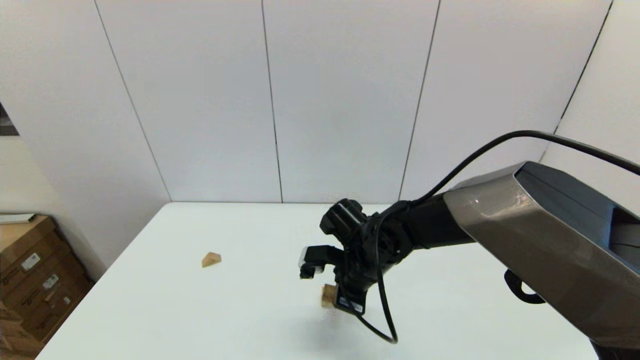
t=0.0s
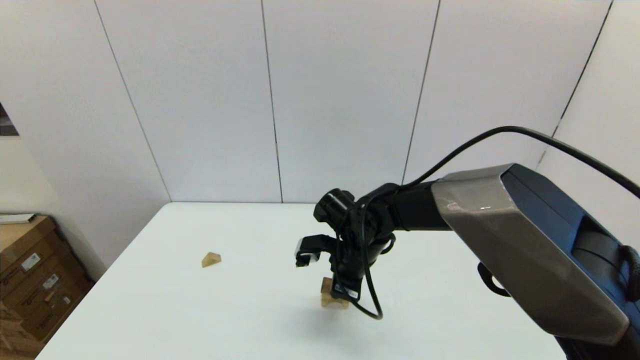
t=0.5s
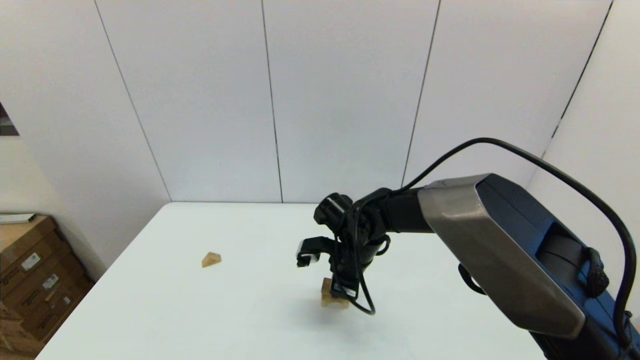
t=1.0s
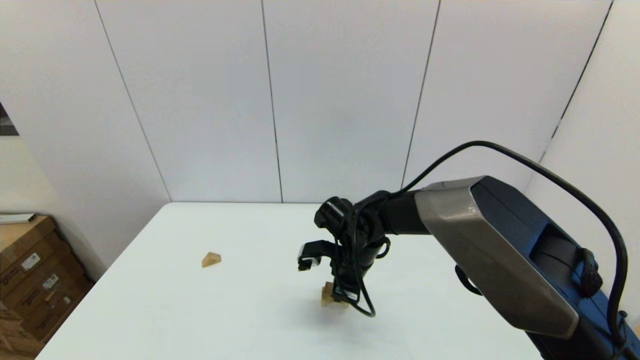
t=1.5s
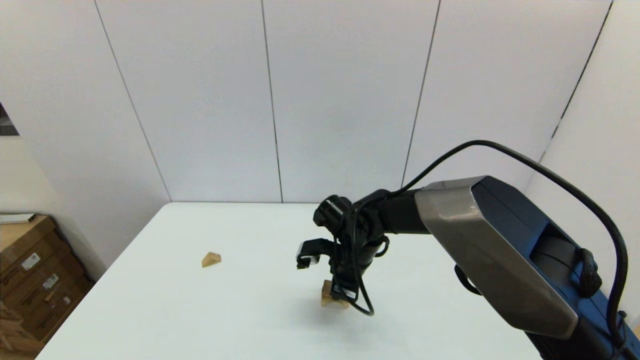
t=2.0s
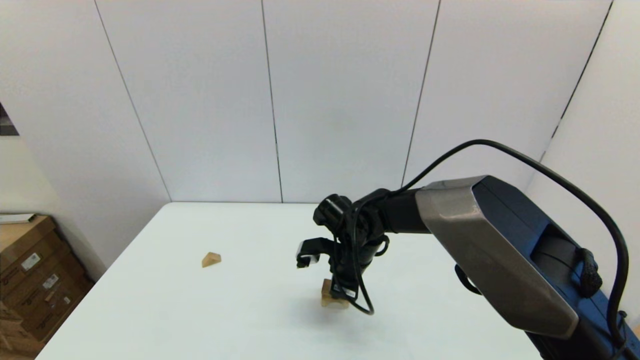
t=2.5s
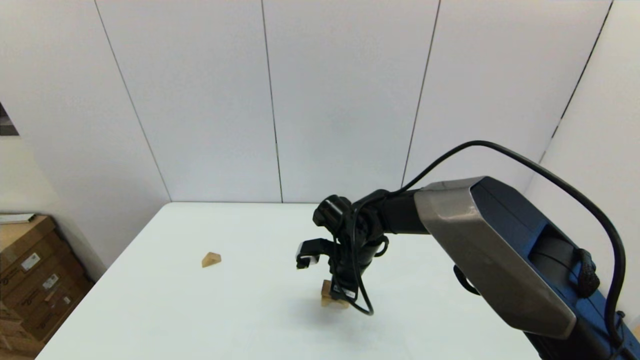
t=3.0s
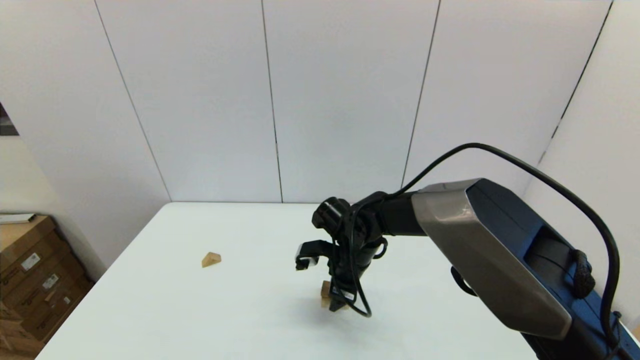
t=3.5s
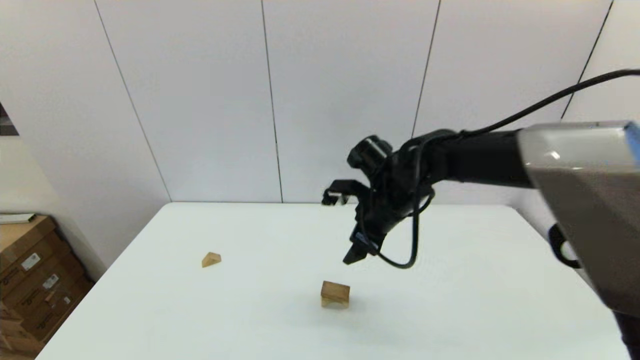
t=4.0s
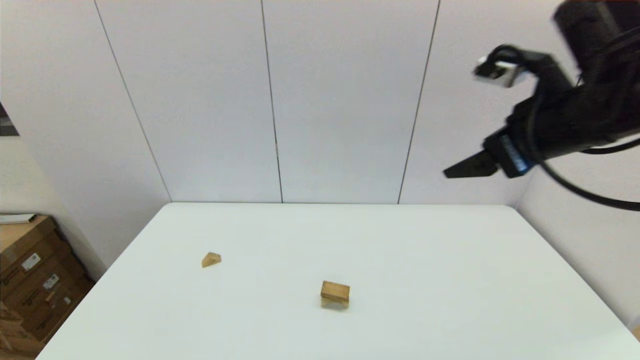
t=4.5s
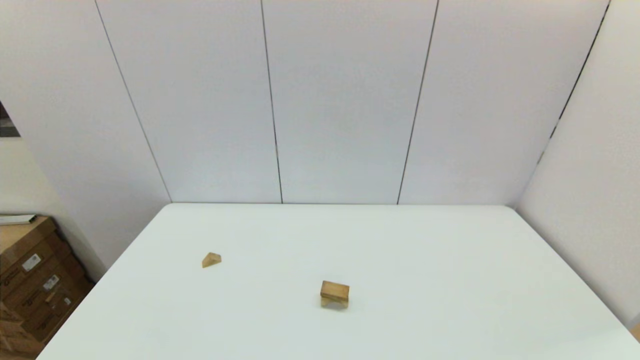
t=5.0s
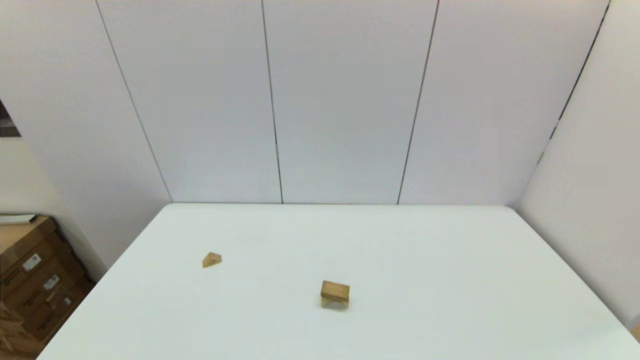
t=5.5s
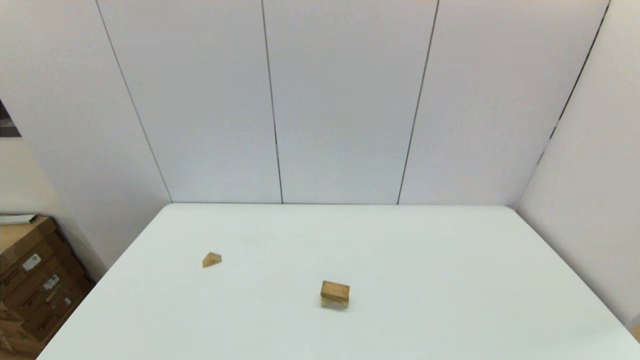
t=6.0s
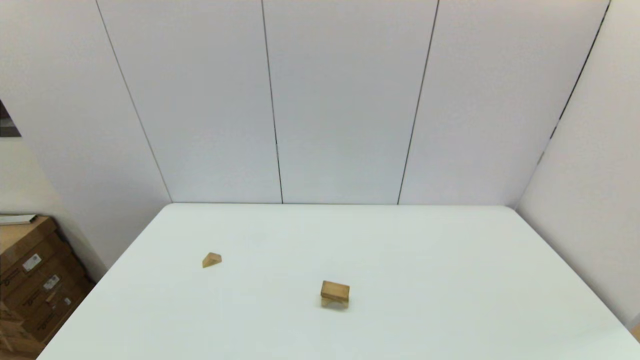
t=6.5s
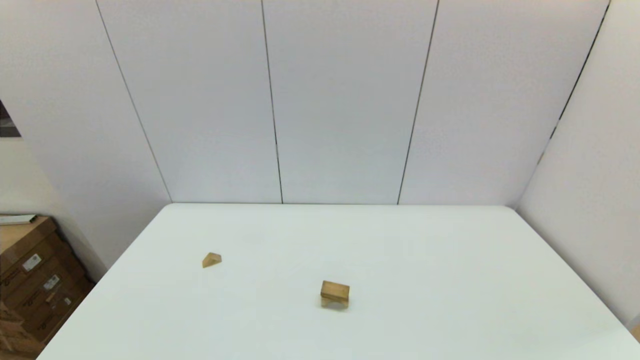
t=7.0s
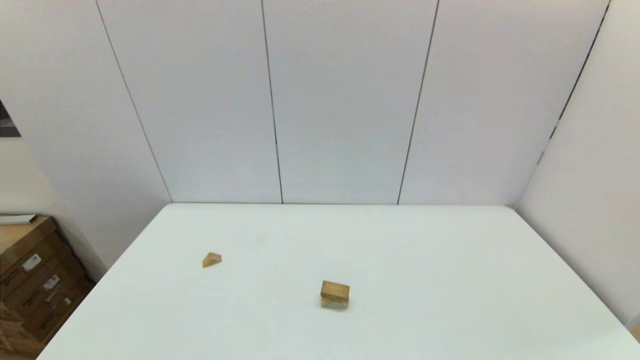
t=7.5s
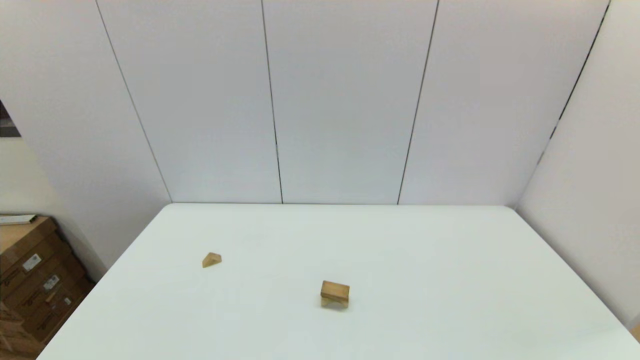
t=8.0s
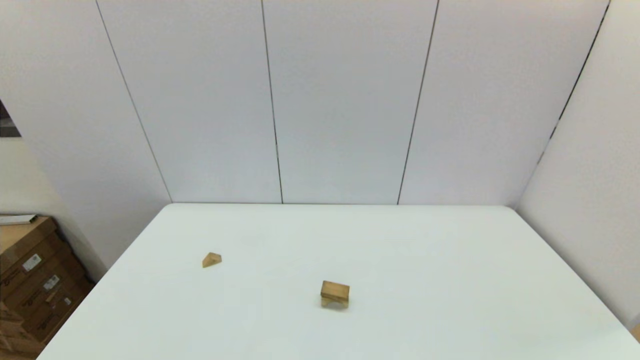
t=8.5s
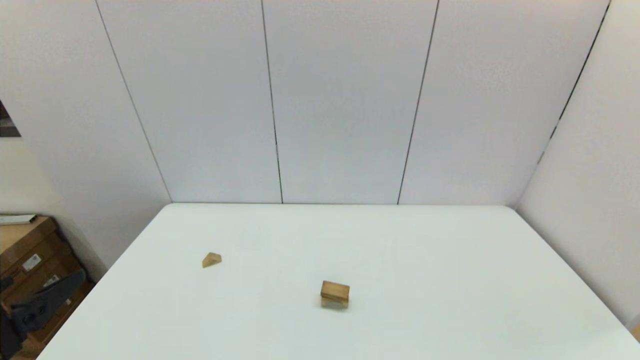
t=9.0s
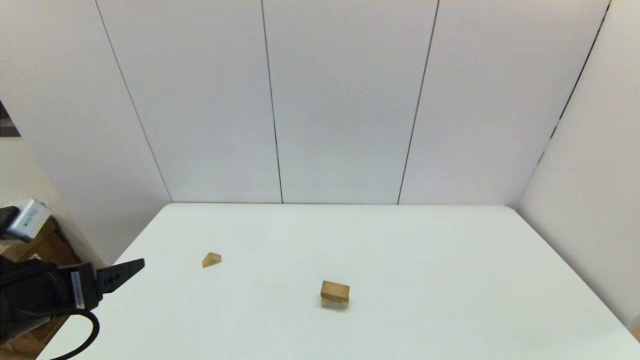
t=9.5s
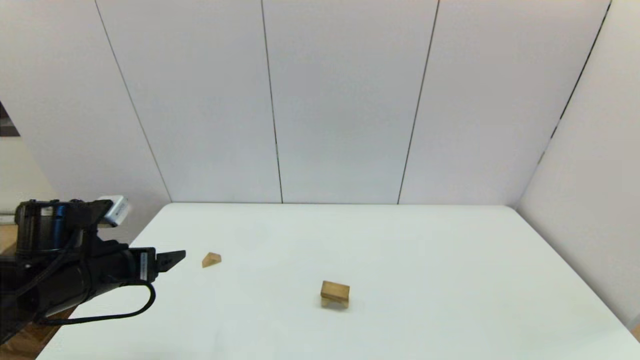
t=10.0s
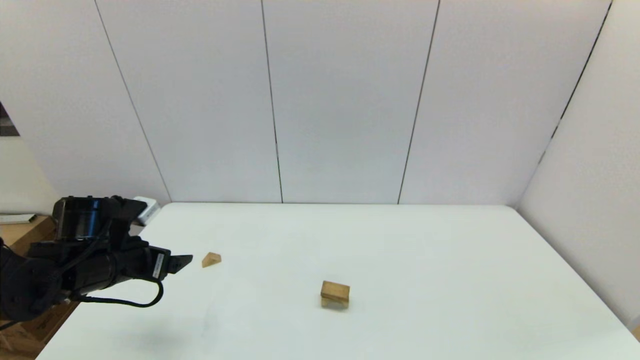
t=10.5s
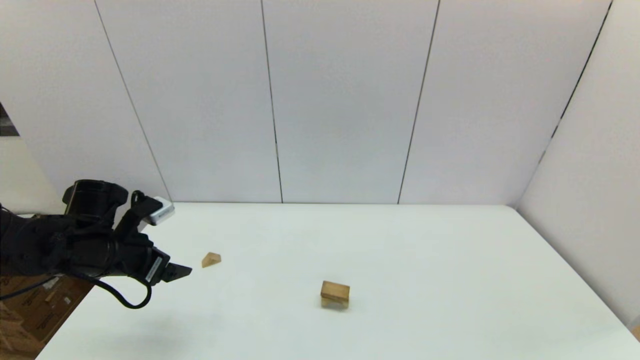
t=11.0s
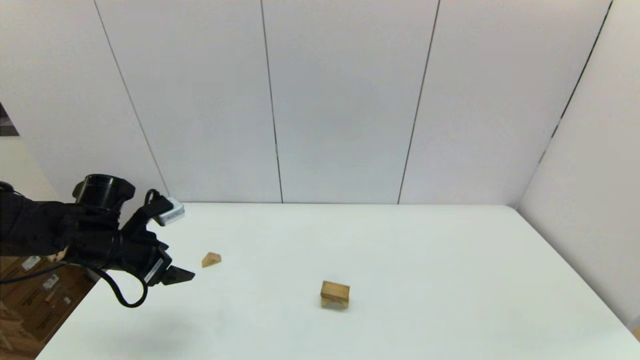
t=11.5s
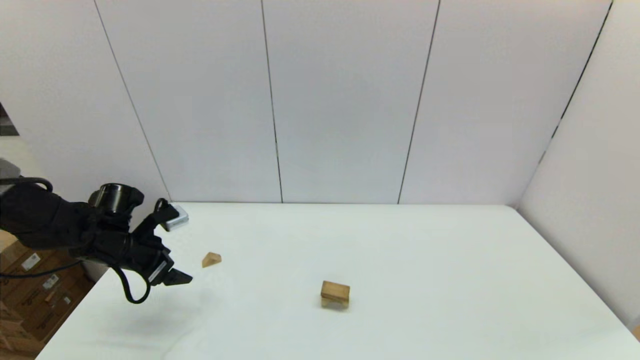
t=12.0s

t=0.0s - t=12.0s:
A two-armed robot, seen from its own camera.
Task of the whole recording: place the arched building blocks in the center of the table, set up the rectangular building blocks, and then set up the triangular building blocks.
Step, t=0.0s - t=3.0s: Place the box-shaped block onto the arch-shaped block with the right gripper.
t=0.0s - t=2.0s: There are only small adjustments of the grippers.
t=2.0s - t=4.0s: The right gripper shifts some 15 cm upward and to the right, and opens its fingers.
t=4.0s - t=6.0s: The right gripper is displaced backward and to the right by approximately 50 cm.
t=8.0s - t=10.0s: The left gripper goes about 25 cm forward.
t=10.0s - t=12.0s: The left gripper heads forward and downward, covering approximately 10 cm.

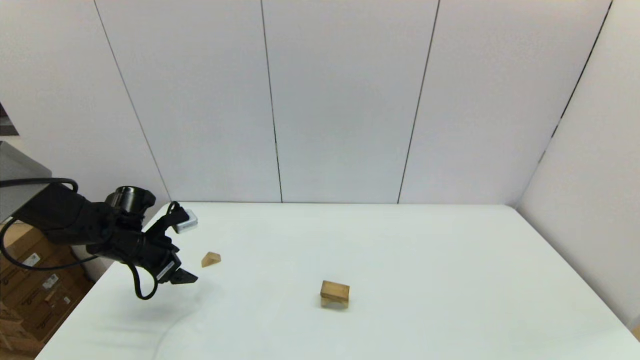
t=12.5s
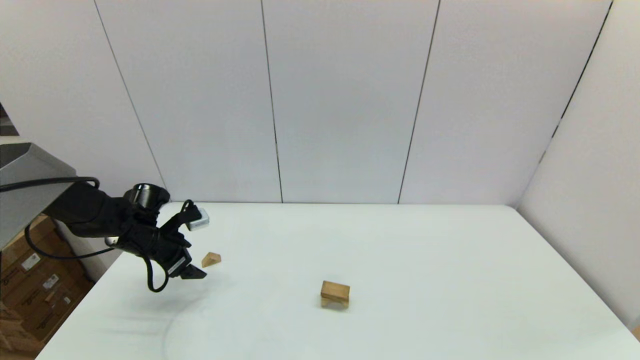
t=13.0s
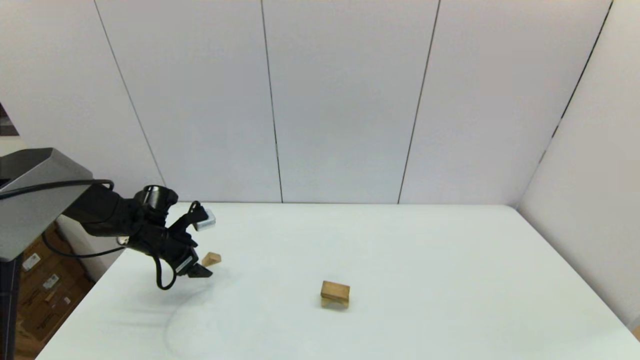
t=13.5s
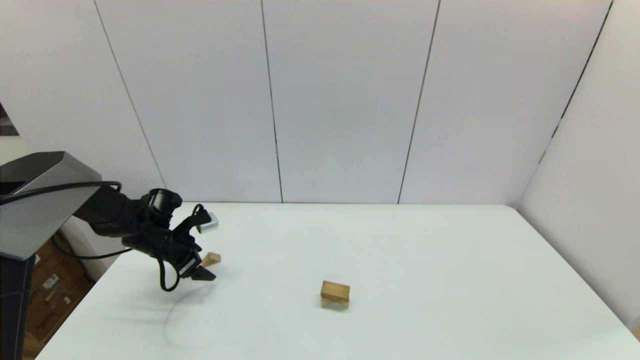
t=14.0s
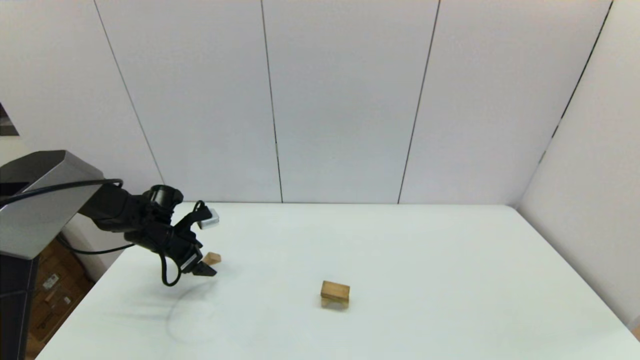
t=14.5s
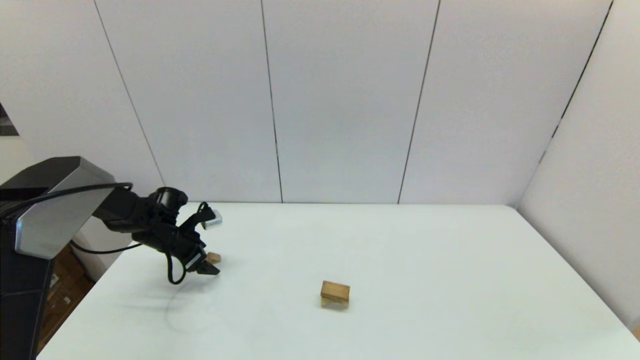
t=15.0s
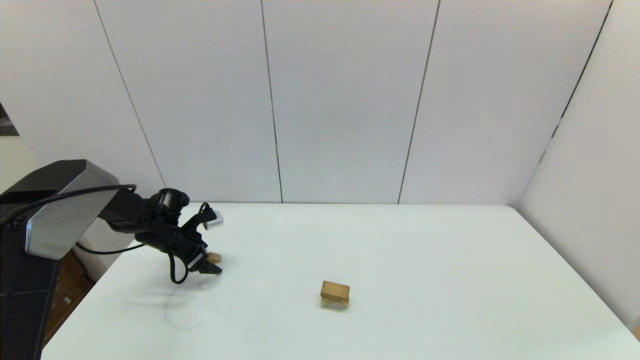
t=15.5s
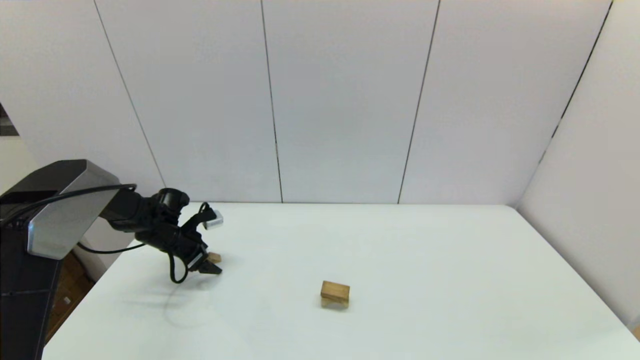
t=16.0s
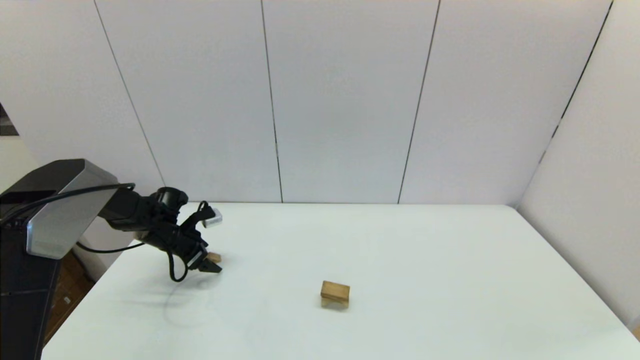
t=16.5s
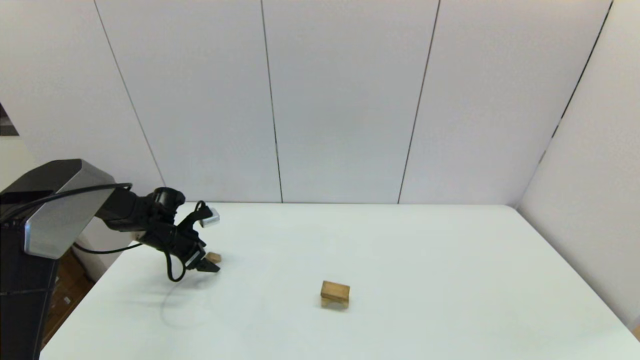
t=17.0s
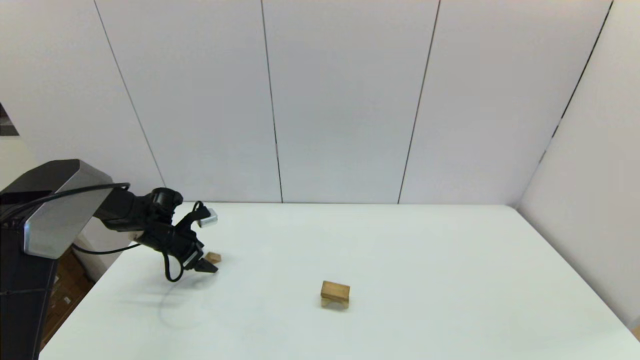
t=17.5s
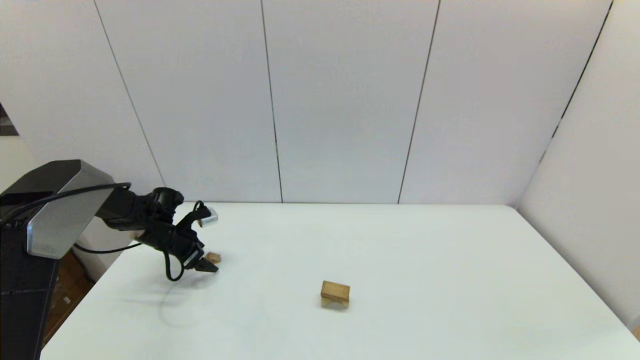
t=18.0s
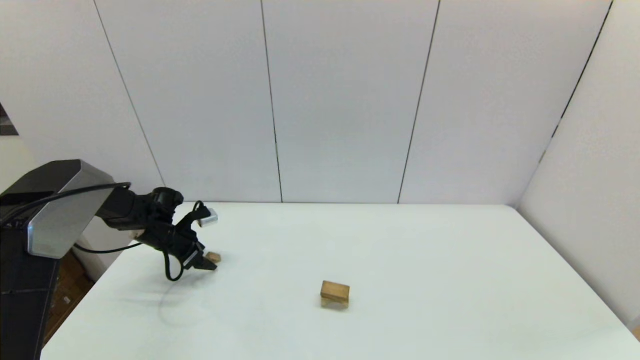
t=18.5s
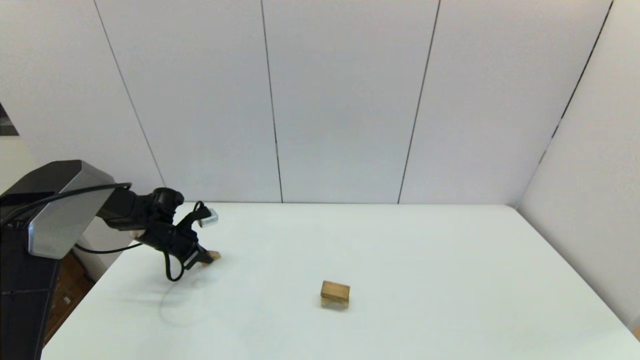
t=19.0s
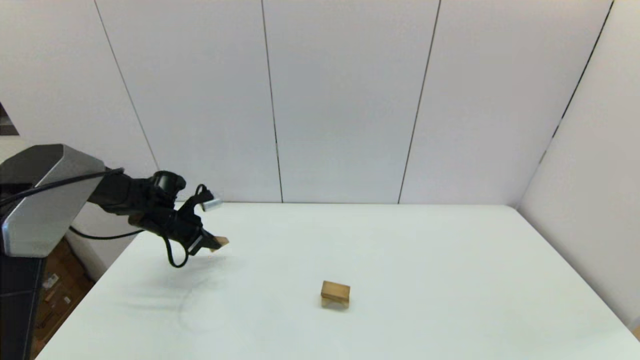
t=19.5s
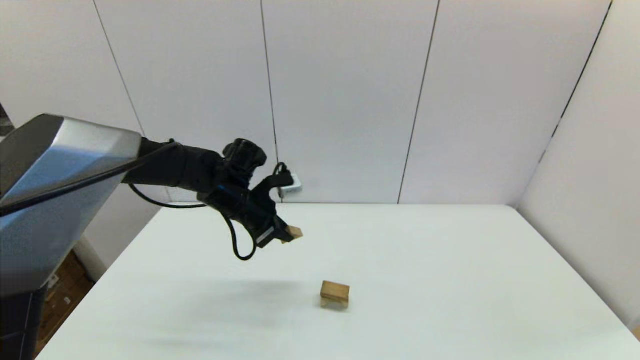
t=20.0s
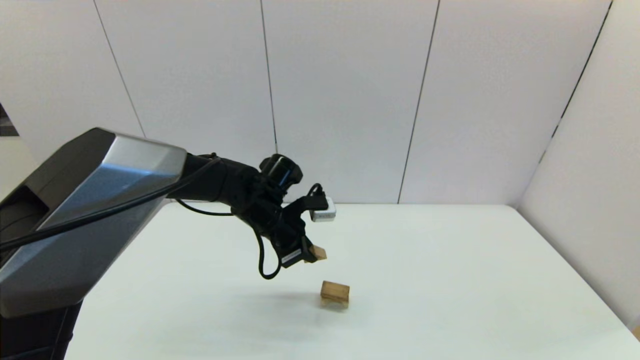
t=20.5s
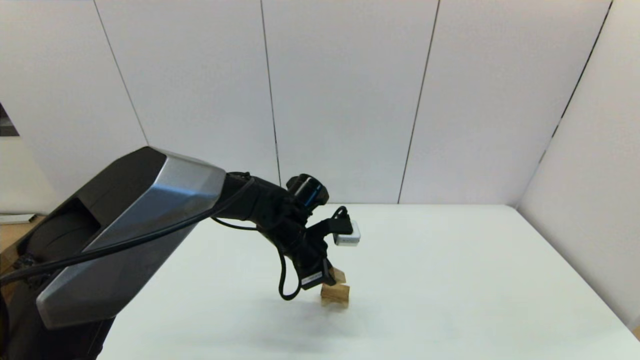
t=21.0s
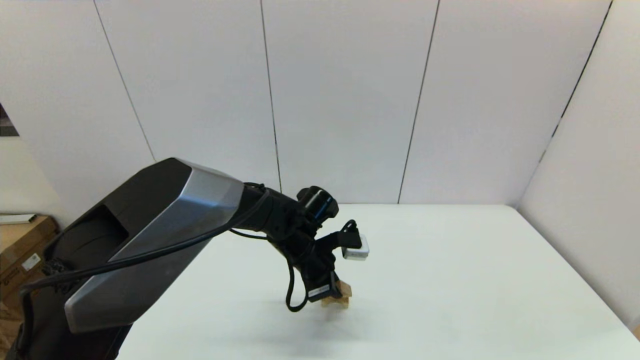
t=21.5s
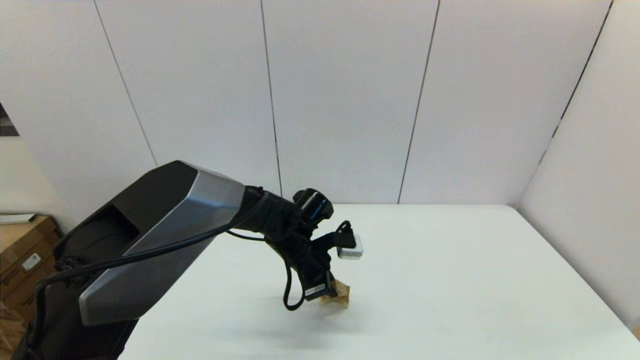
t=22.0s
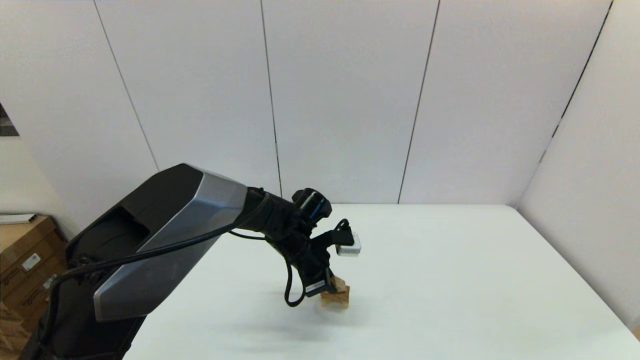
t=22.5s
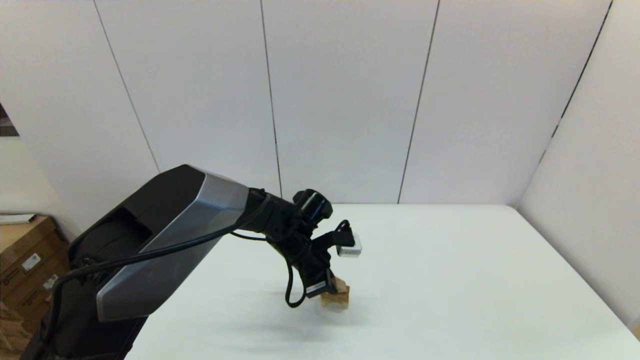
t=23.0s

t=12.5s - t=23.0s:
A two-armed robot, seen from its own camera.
Task of the whole recording: place the arched building blocks in the center of the table, set up the rectangular building blocks, and then set up the triangular building blocks.
Step, t=12.5s - t=19.0s: Grasp the triangle-shaped block with the left gripper.
t=12.5s - t=14.5s: The left gripper moves forward, approximately 5 cm.
t=14.5s - t=16.5s: There are only small adjustments of the grippers.
t=16.5s - t=19.0s: The left gripper closes its fingers.
t=19.0s - t=21.0s: The left gripper moves to the right, some 30 cm.
t=21.0s - t=23.0s: The grippers stay close to where they were, moving slightly.
